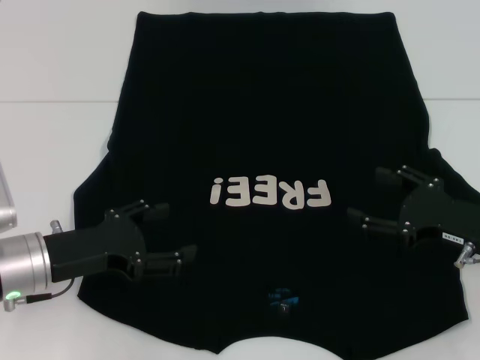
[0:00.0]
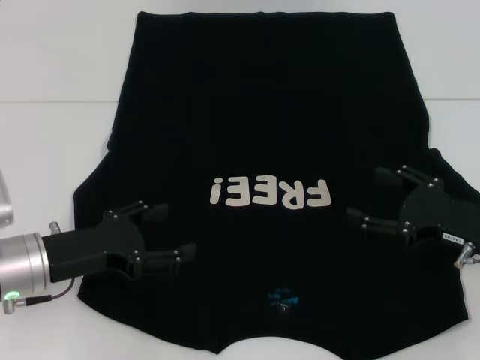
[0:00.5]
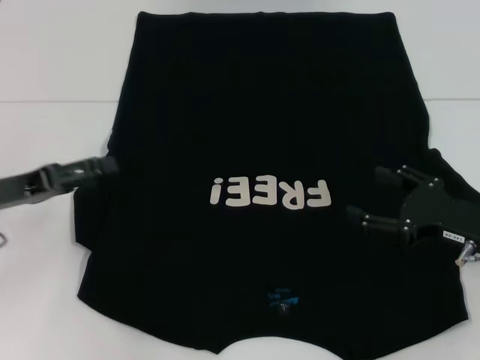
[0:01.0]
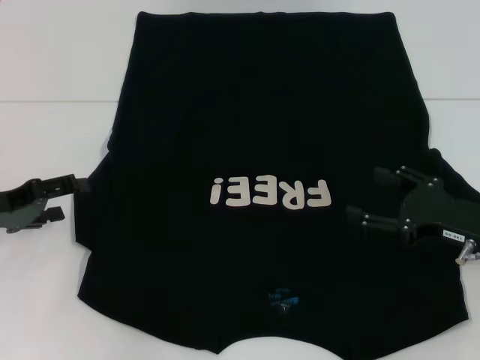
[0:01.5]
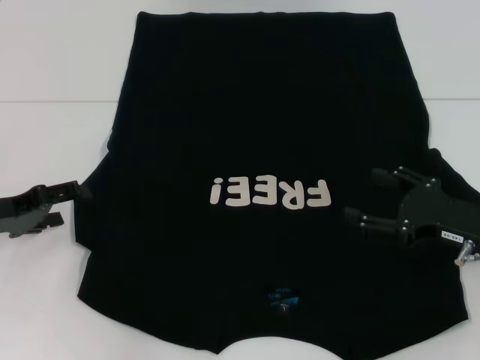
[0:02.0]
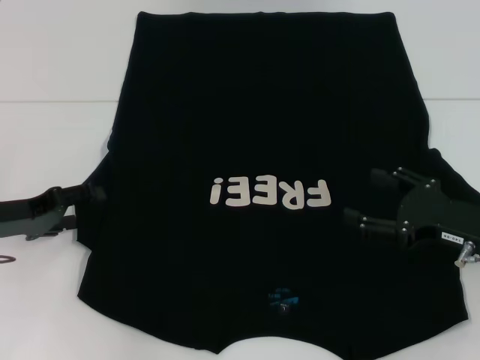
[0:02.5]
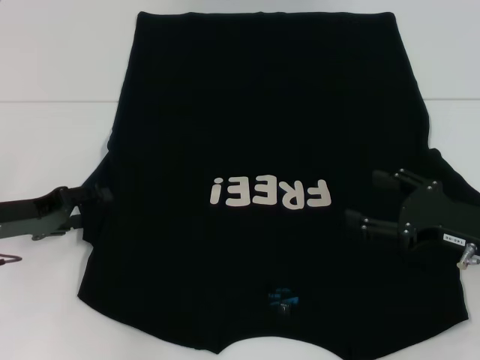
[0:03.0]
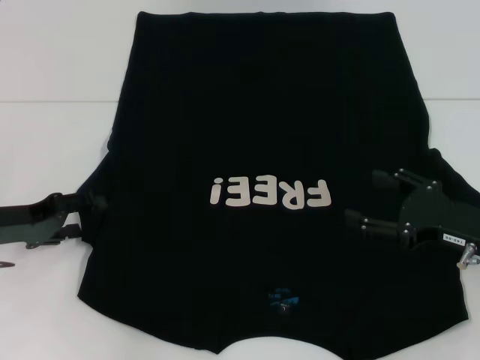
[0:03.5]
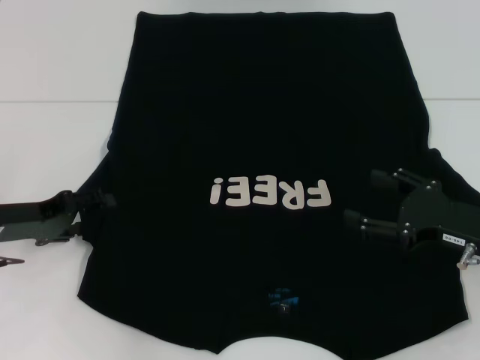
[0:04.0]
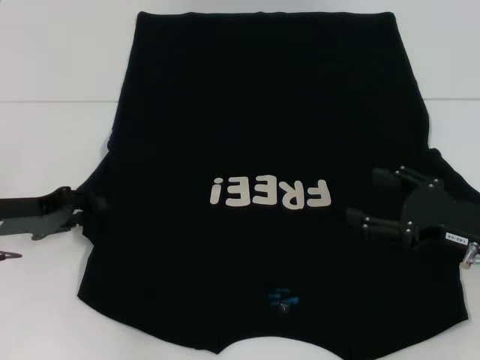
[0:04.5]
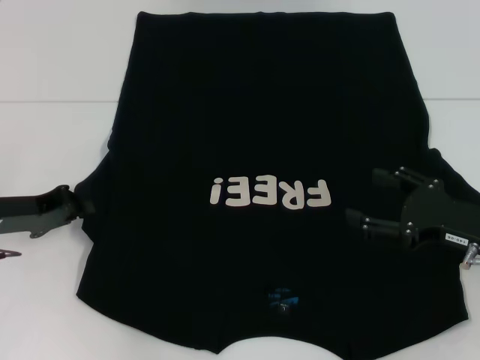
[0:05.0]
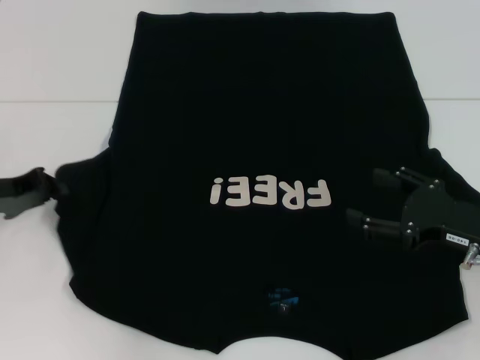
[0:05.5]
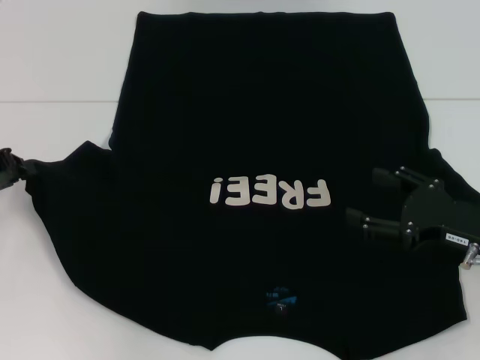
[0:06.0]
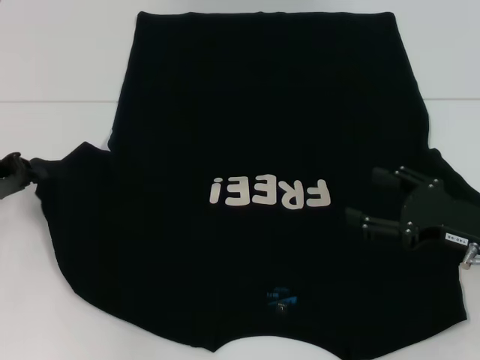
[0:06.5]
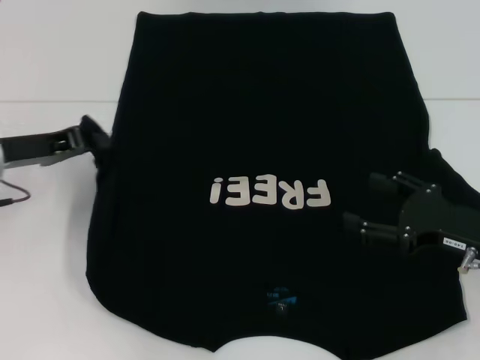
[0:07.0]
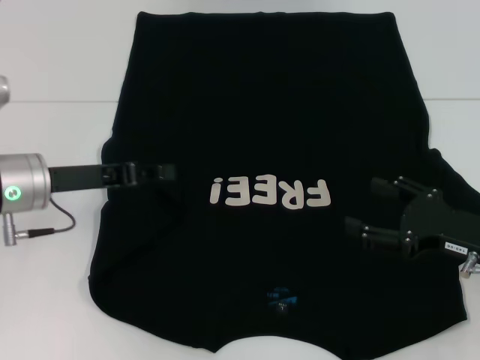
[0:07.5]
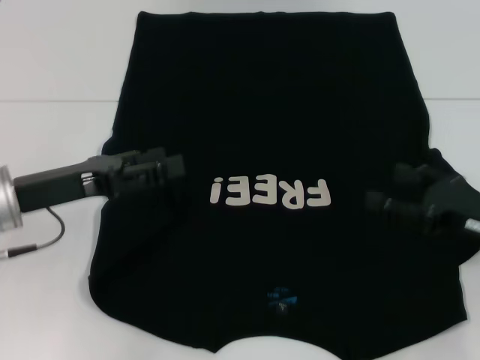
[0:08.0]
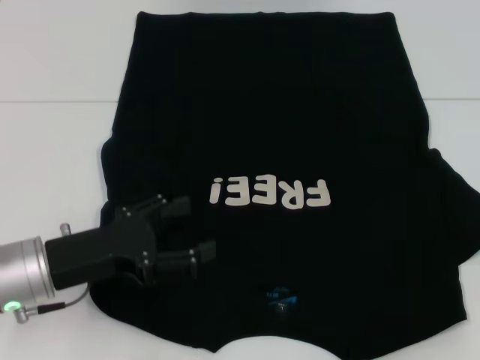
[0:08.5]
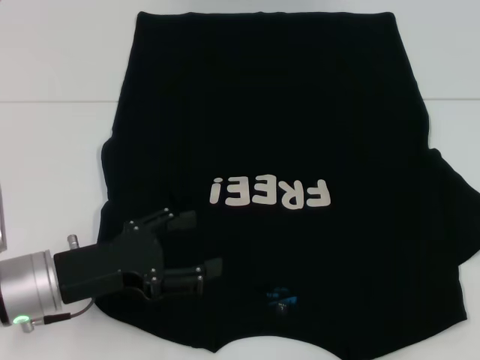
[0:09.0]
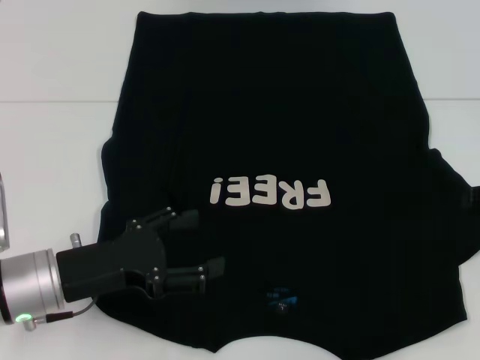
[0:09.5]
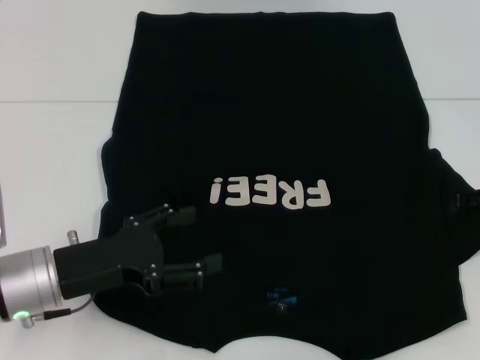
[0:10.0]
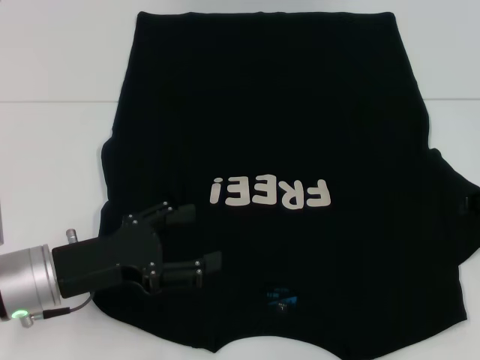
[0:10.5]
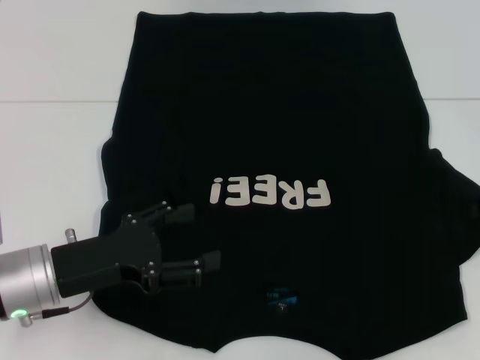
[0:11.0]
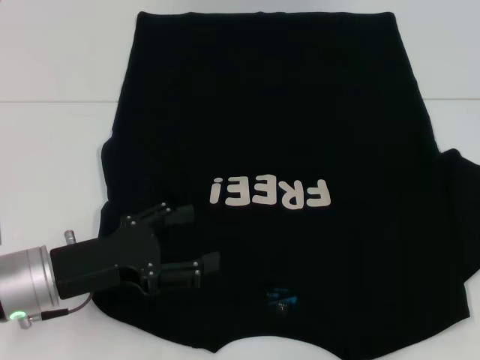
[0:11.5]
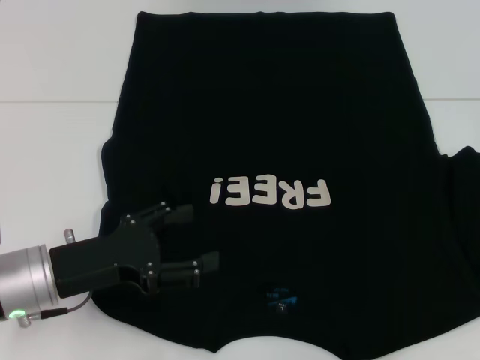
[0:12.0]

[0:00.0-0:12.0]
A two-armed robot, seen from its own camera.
Step, 0:00.0 to 0:09.0: Fold the bottom left sleeve with your left hand.
0:00.0 to 0:02.0: The left gripper goes approximately 10 cm to the left.
0:02.0 to 0:04.0: The grippers stay close to where they were, moving slightly.
0:04.0 to 0:06.0: The left gripper moves some 5 cm, and closes.
0:06.0 to 0:08.0: The left gripper shifts approximately 10 cm to the right, and opens its fingers.
0:08.0 to 0:10.0: The right gripper shifts some 10 cm forward and to the right. The left gripper goes roughly 5 cm downward, and opens up.
0:10.0 to 0:12.0: The right gripper closes.

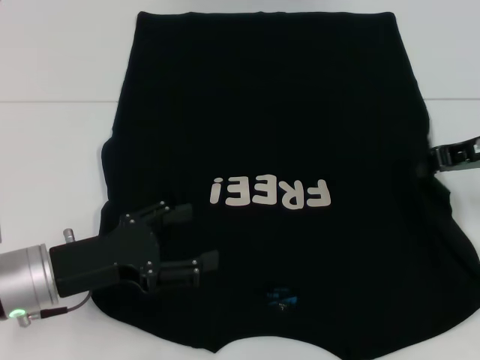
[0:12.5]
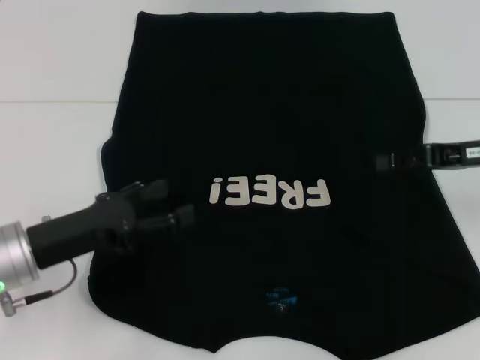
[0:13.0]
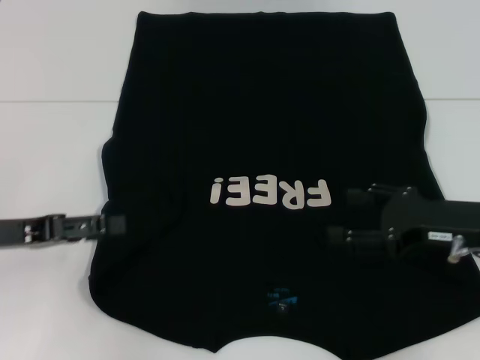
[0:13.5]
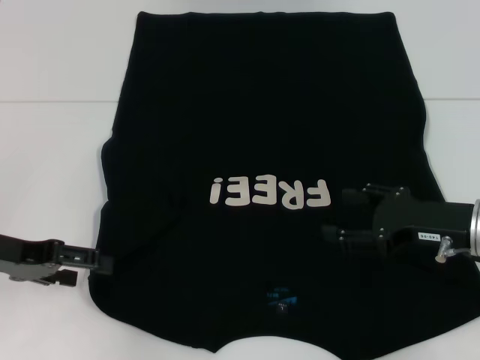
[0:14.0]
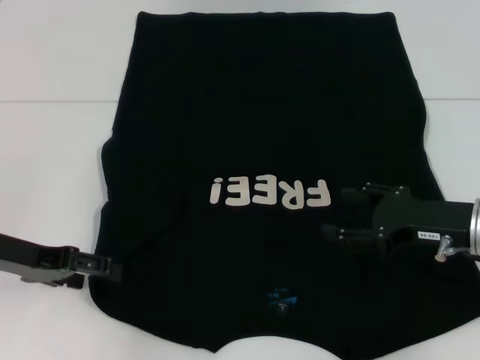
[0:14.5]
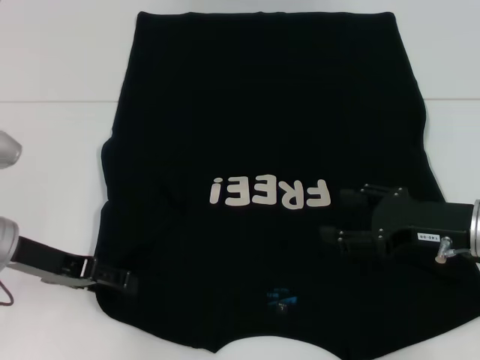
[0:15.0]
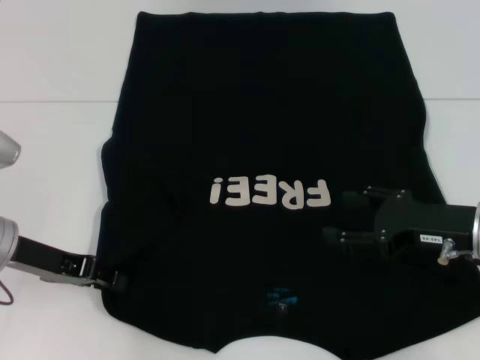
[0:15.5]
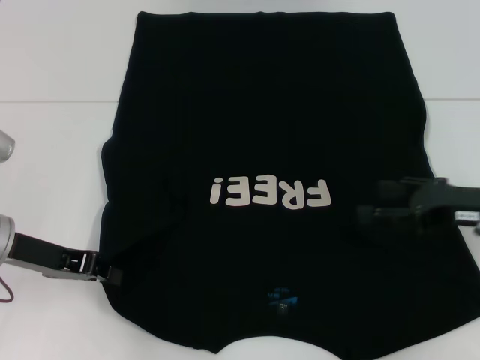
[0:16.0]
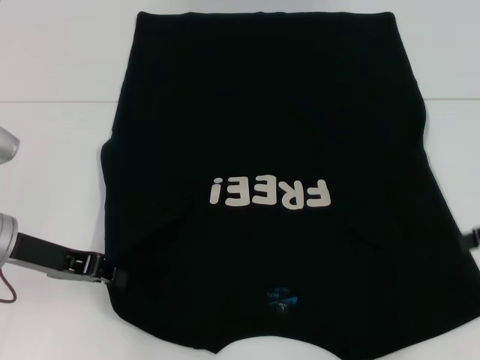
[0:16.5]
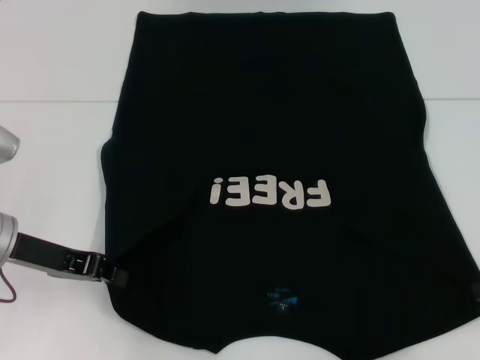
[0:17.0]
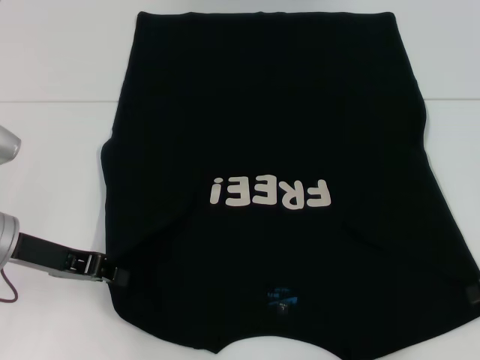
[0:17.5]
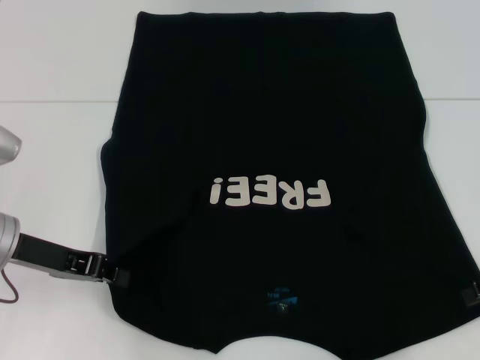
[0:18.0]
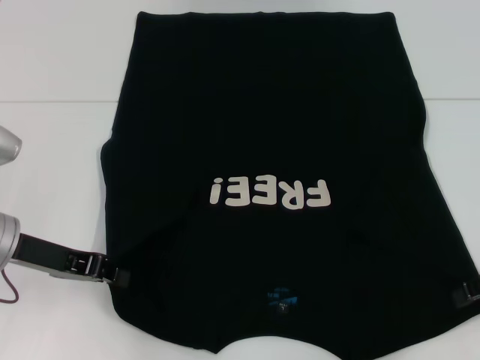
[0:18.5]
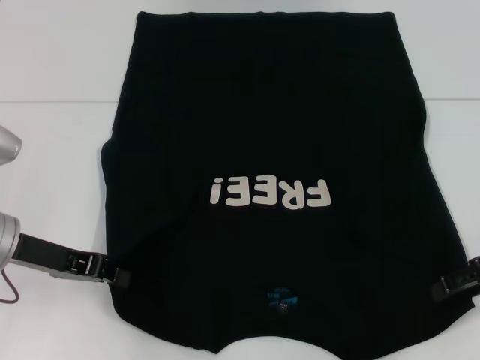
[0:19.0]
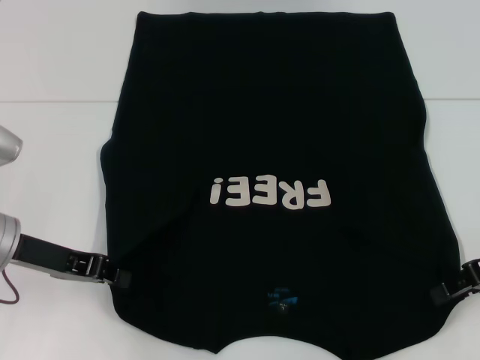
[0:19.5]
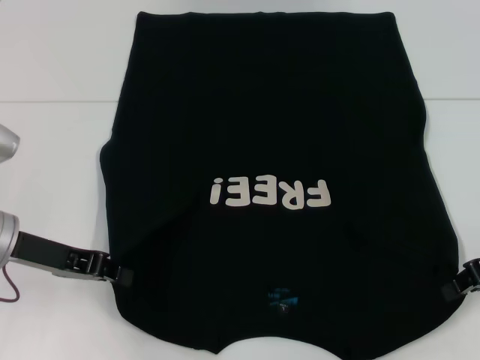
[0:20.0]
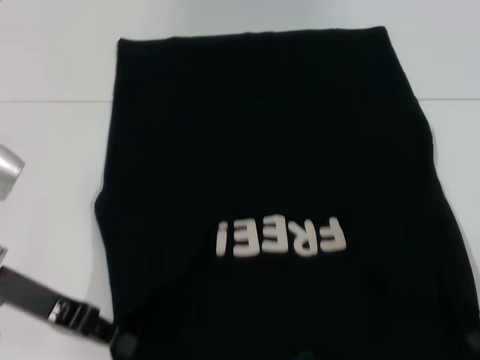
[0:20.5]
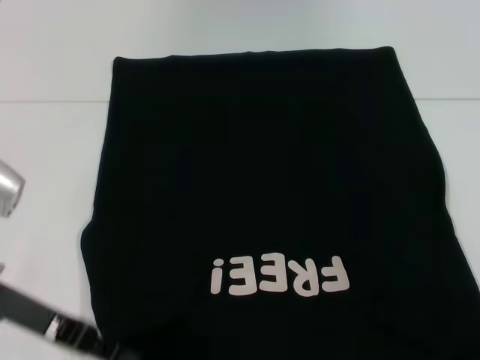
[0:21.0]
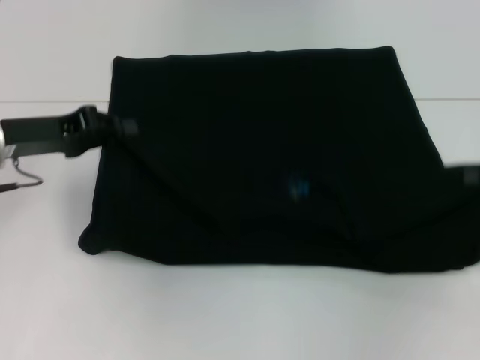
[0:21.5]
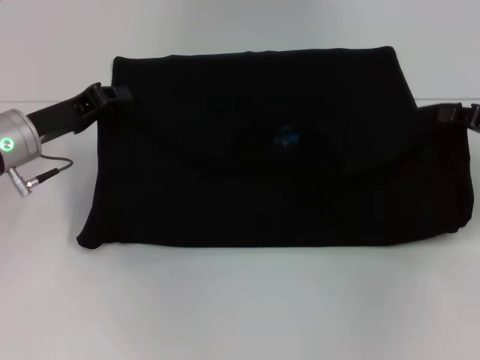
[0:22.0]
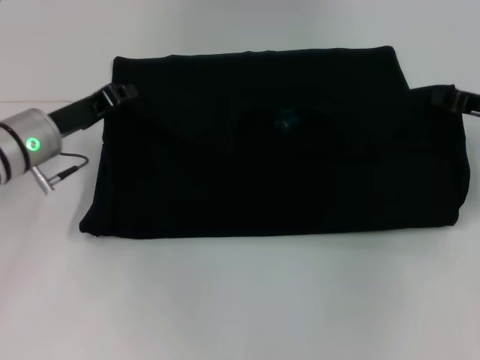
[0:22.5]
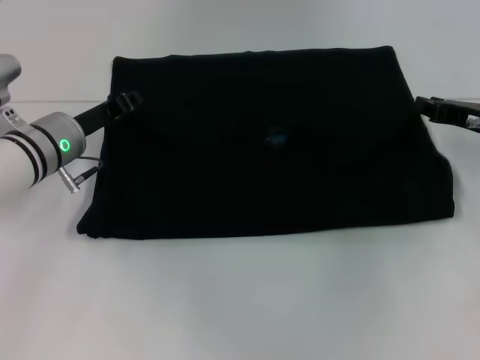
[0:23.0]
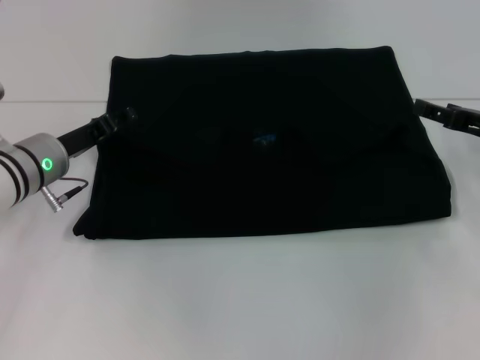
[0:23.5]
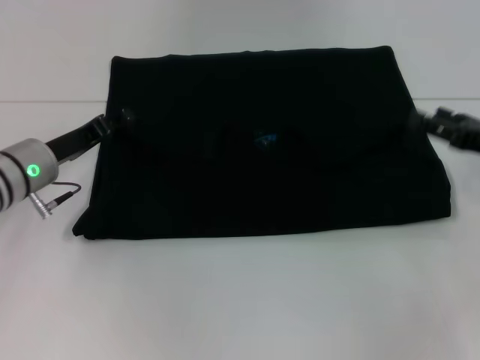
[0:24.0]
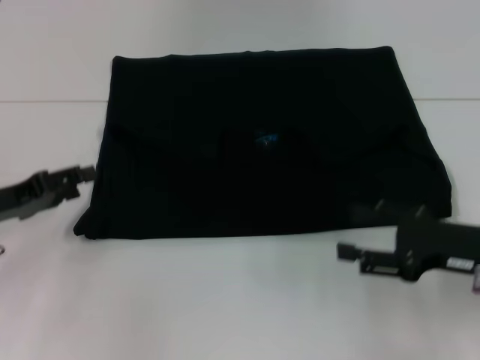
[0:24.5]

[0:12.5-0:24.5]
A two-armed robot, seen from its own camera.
Step, 0:13.5 to 0:20.0: Grab the bottom left corner with your left hand.
Step, 0:13.5 to 0:20.0: Grab the bottom right corner with your right hand.
Step, 0:20.5 to 0:23.5: Fold the clothes with your left hand.
Step, 0:20.5 to 0:23.5: Fold the clothes with your right hand.
0:12.5 to 0:14.5: The right gripper travels downward and backward by approximately 10 cm, and opens its fingers, while the left gripper goes roughly 5 cm to the left.
0:14.5 to 0:16.5: The right gripper goes roughly 15 cm to the right and upward. Meanwhile the left gripper closes up.
0:16.5 to 0:18.5: The grippers move only a little.
0:18.5 to 0:20.5: The right gripper closes its fingers.
0:20.5 to 0:22.5: Both grippers move forward, approximately 10 cm.
0:22.5 to 0:24.5: The left gripper shifts roughly 10 cm to the left and backward, and opens its fingers; the right gripper travels backward by approximately 10 cm, and opens its fingers.

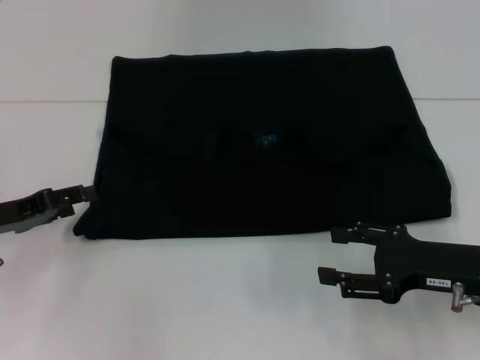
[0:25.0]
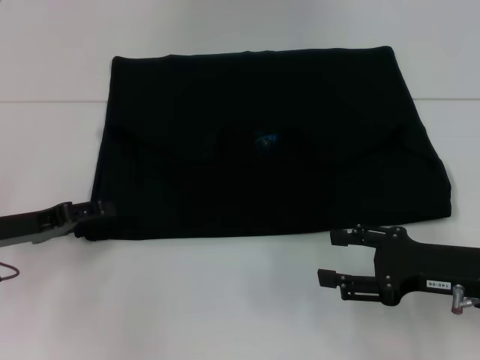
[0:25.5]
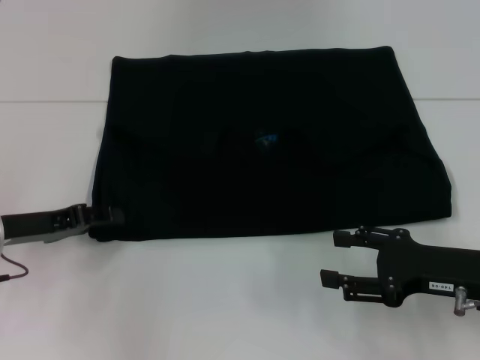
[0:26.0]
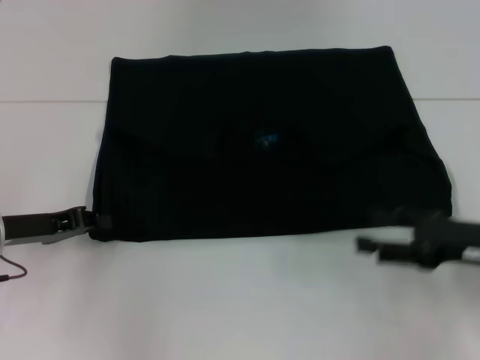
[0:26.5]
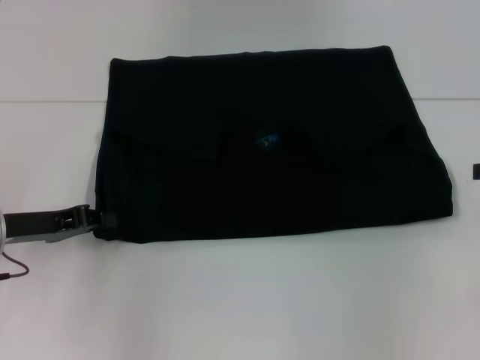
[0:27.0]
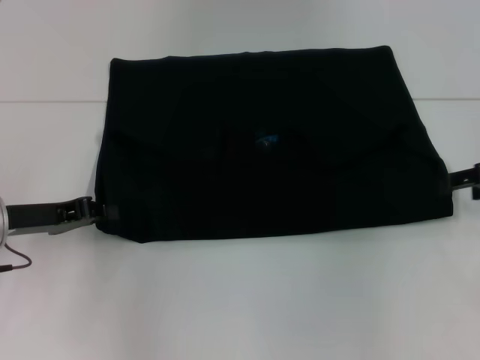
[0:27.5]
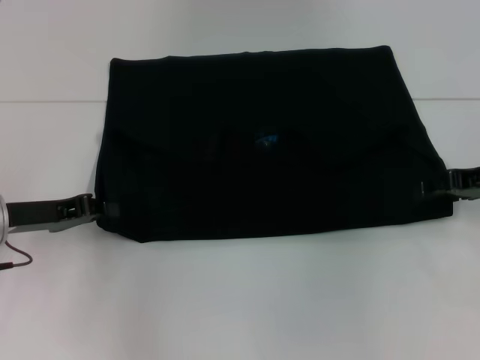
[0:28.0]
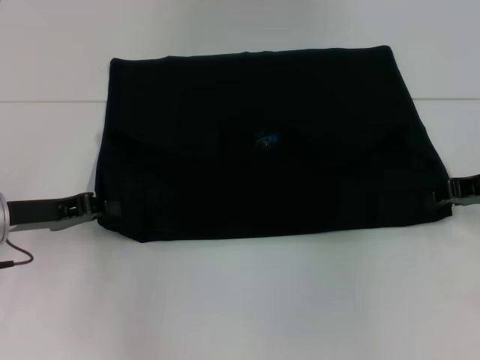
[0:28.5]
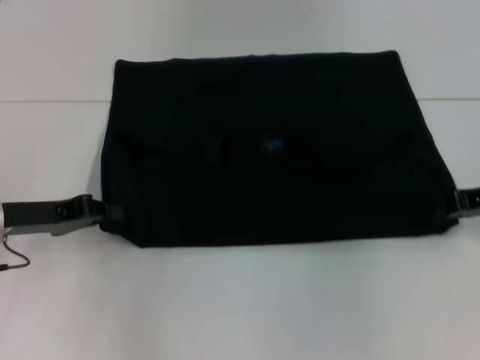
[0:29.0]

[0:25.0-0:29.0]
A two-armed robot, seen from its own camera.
0:25.0 to 0:27.0: The right gripper moves to the right, upward and forward, approximately 15 cm, while the left gripper closes.
0:27.0 to 0:29.0: The right gripper travels to the left by some 5 cm, and closes.
